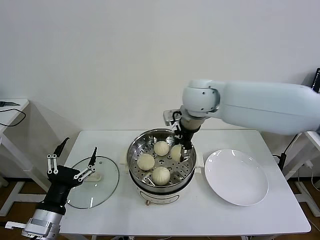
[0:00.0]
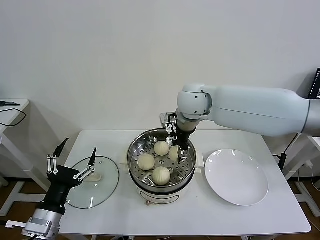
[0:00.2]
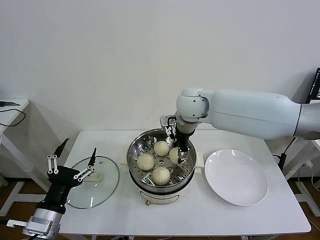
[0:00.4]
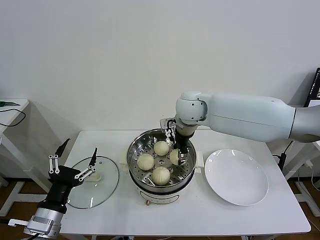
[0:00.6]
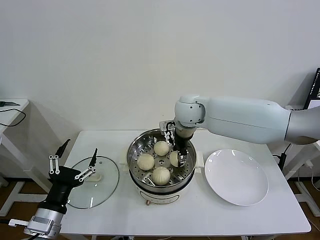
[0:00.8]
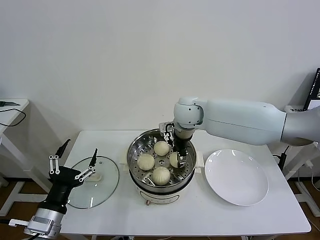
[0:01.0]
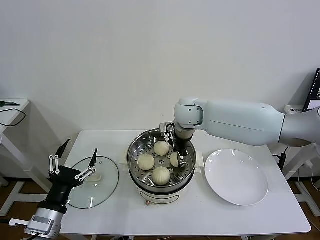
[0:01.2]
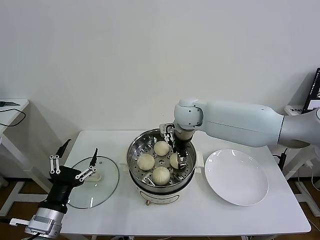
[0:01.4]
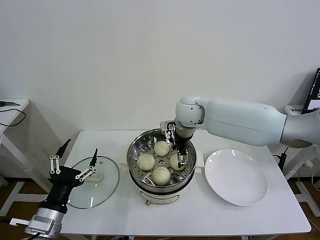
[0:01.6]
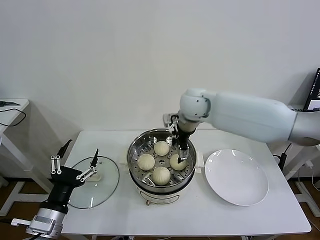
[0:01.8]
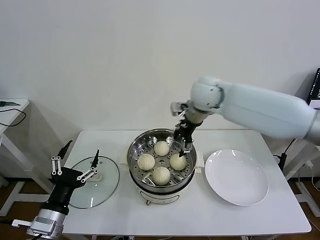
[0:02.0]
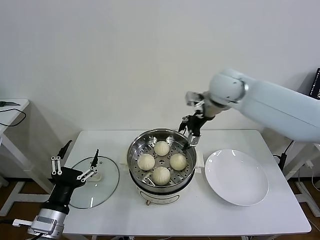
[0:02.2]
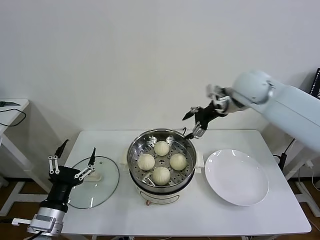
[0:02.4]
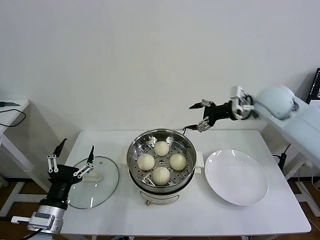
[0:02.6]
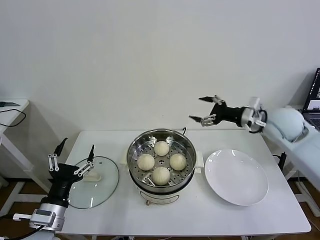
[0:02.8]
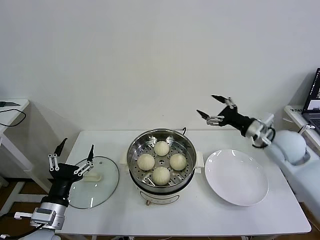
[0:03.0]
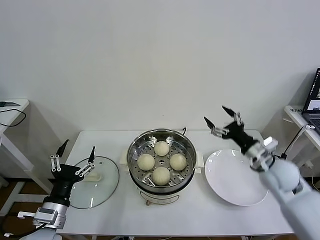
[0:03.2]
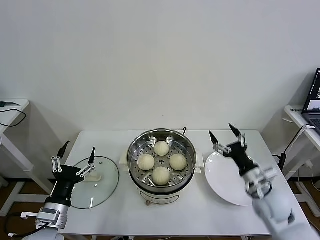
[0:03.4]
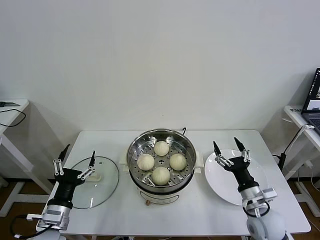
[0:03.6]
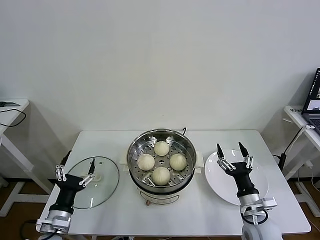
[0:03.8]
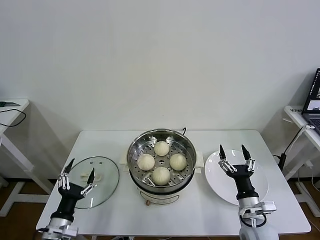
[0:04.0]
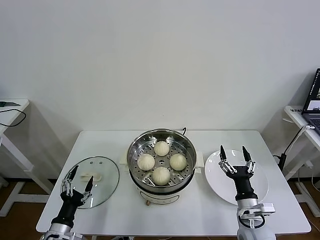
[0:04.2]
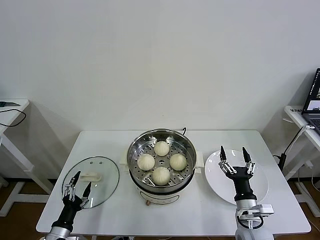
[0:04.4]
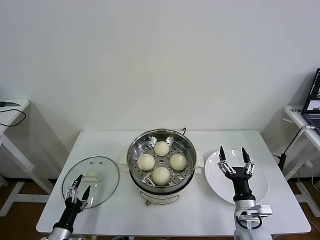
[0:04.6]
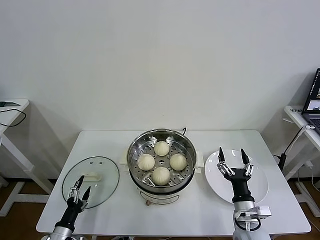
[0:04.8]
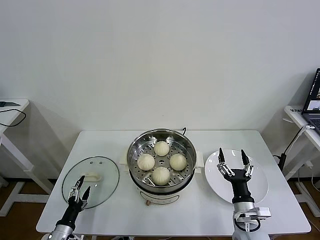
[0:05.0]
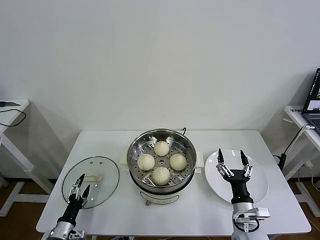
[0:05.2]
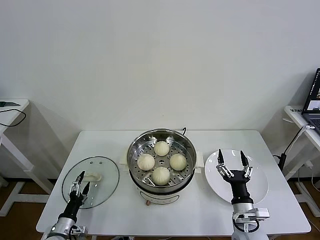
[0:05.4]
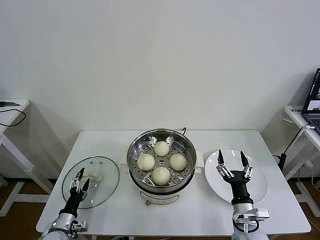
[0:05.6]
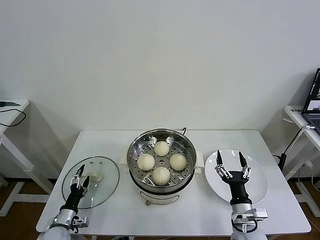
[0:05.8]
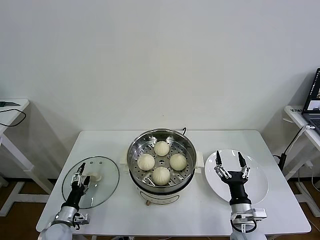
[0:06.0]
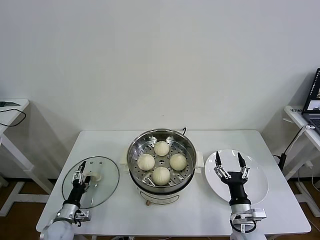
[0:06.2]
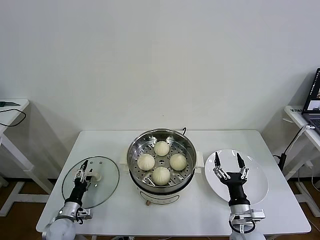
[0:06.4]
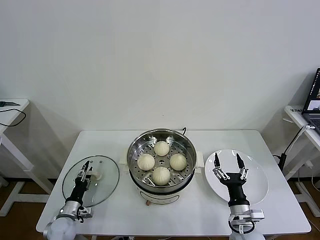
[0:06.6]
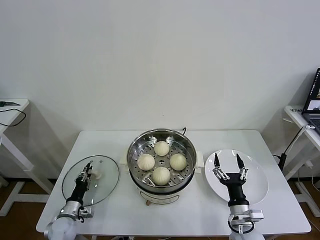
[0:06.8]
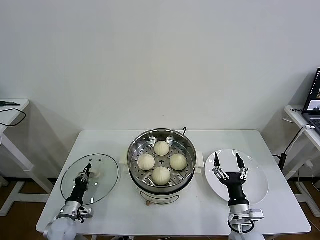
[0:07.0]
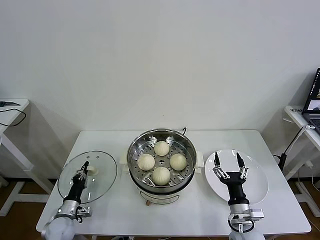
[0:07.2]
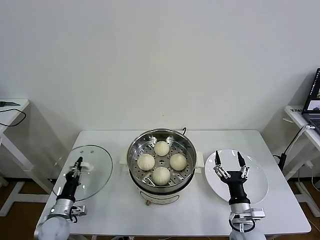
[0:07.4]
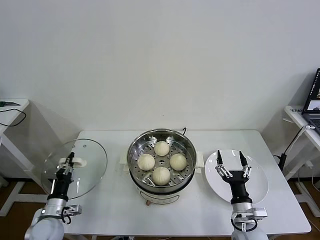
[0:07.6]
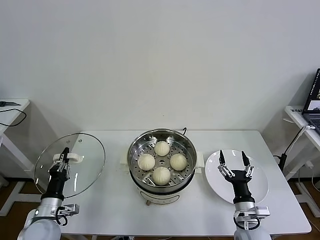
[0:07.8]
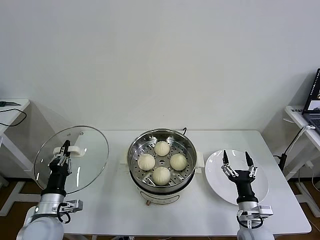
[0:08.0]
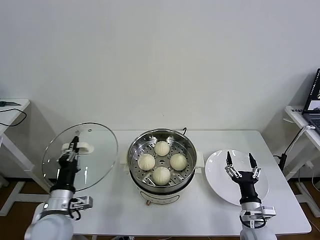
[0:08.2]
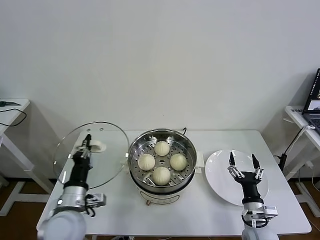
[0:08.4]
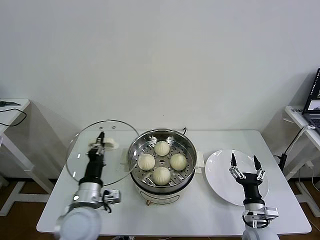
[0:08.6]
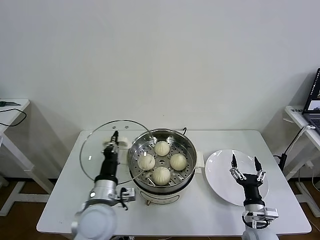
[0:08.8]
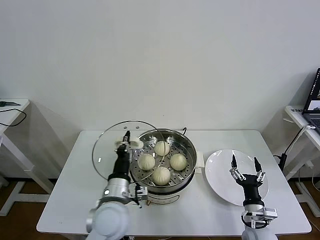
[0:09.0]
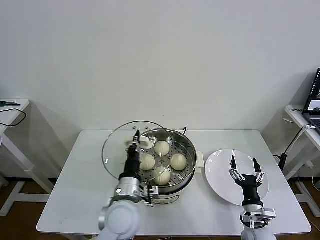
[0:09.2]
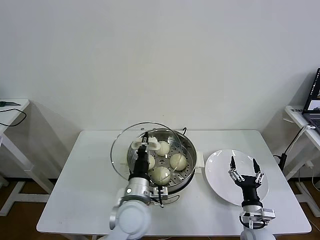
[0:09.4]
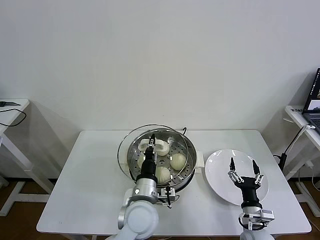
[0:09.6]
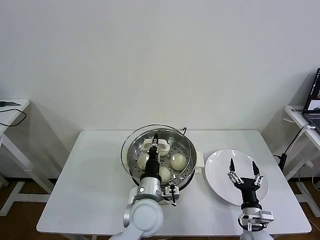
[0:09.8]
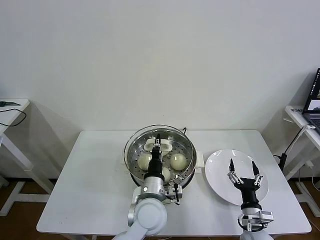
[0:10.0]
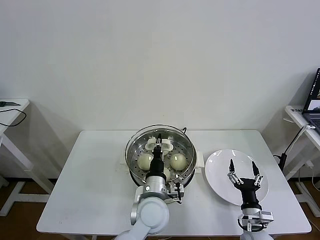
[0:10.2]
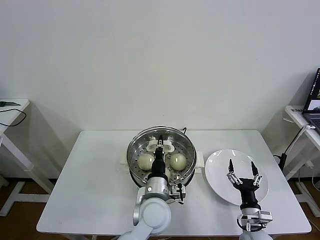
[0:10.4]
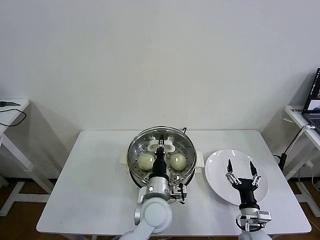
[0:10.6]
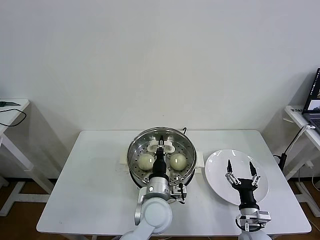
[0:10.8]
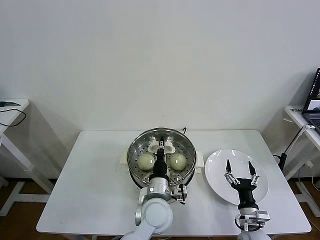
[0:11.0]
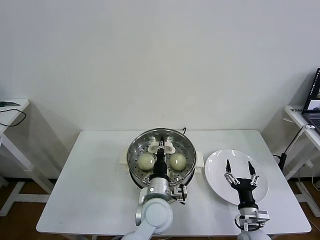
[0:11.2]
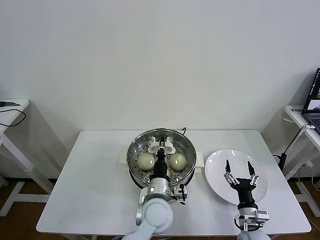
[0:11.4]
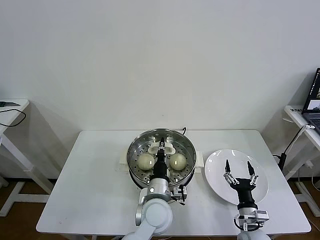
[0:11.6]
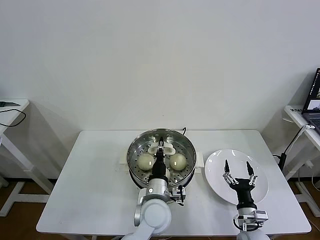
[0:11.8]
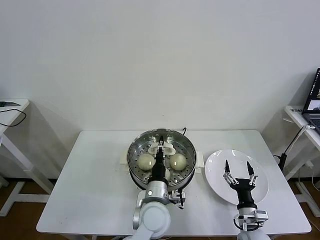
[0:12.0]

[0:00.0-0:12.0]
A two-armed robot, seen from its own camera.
Task of the whole recording: take steamed baozi put them in steamer then cover it.
Step, 0:01.8 to 0:07.0: Grasp the pot lid with left gripper.
0:00.0 to 0:01.6: The right gripper shifts about 10 cm downward, and opens its fingers.
0:01.6 to 0:03.0: The right gripper heads to the right and backward, covering about 30 cm.
0:03.0 to 0:04.4: The right gripper heads downward and backward, covering roughly 25 cm. Meanwhile the left gripper heads downward, covering approximately 15 cm.
0:04.4 to 0:06.0: The left gripper travels forward and downward by about 10 cm.
0:06.0 to 0:07.6: The left gripper is displaced upward by approximately 5 cm, and closes up.
0:07.6 to 0:09.0: The left gripper is displaced to the right and upward by approximately 30 cm.
0:09.0 to 0:10.4: The left gripper travels to the right by about 10 cm.
0:10.4 to 0:12.0: The grippers stay close to where they were, moving slightly.

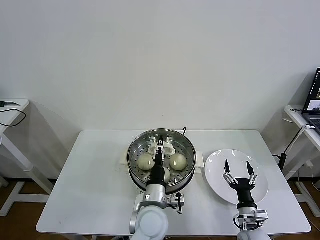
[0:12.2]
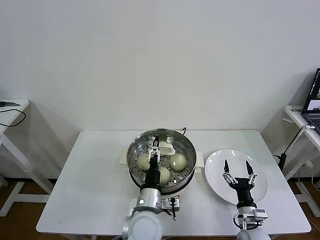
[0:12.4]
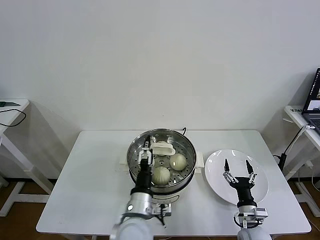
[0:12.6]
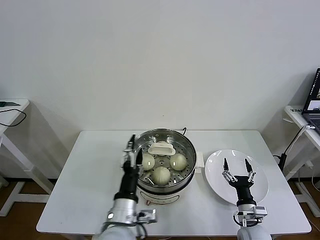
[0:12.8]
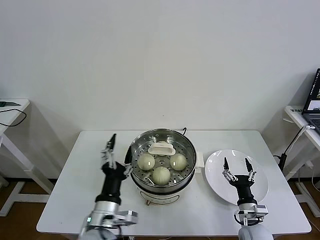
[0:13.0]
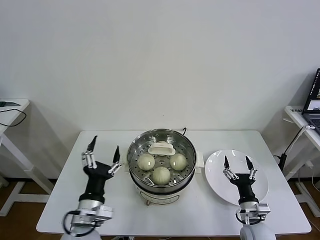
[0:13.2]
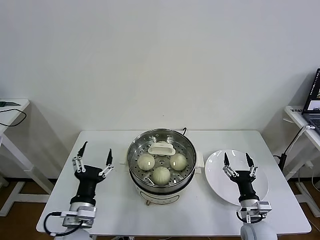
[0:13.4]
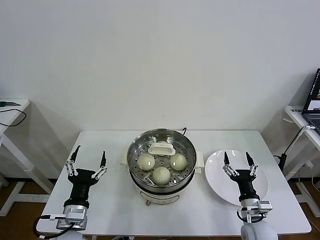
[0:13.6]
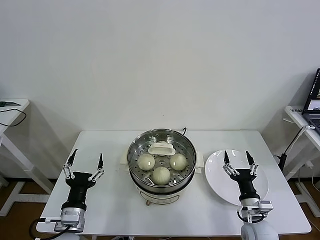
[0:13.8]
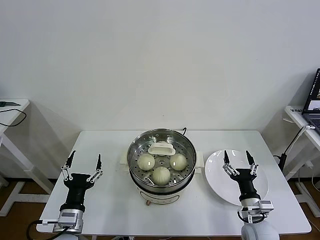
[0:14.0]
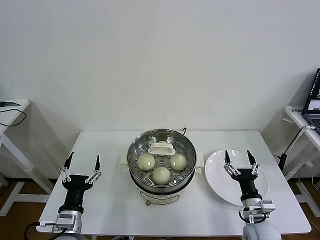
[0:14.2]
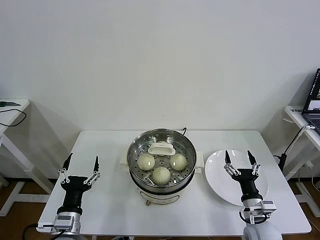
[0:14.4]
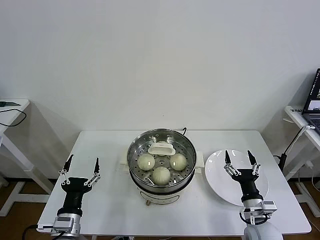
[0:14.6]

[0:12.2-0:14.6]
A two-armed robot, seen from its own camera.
Task of the whole recording: take steamed baozi put them in steamer then cover it.
0:12.2 to 0:13.4: The left gripper goes some 20 cm to the left, and opens its fingers.
0:13.4 to 0:14.6: The left gripper ends up approximately 5 cm from where it was.

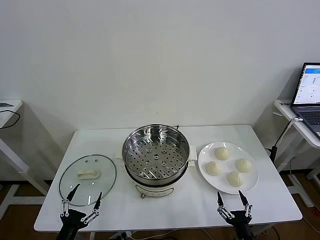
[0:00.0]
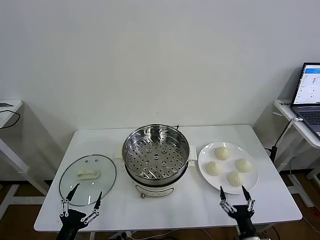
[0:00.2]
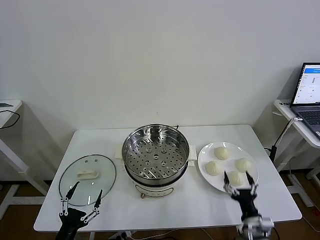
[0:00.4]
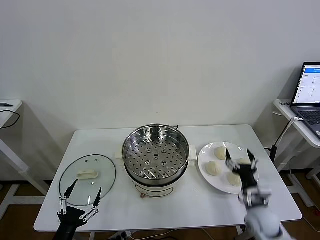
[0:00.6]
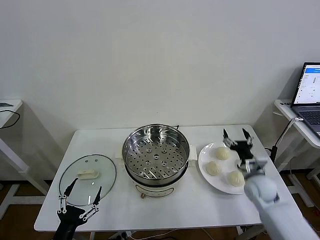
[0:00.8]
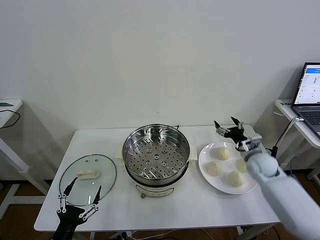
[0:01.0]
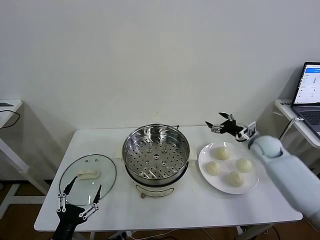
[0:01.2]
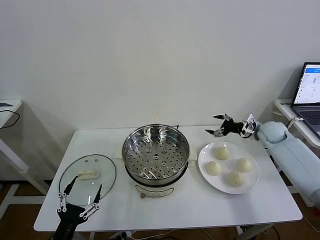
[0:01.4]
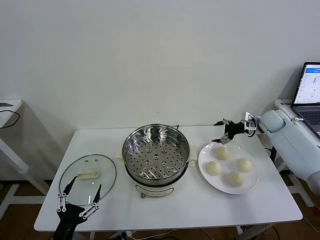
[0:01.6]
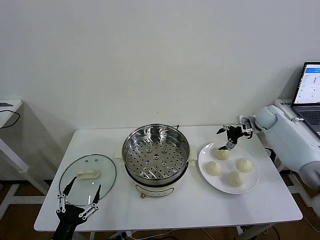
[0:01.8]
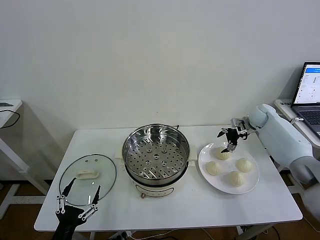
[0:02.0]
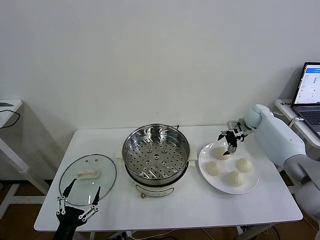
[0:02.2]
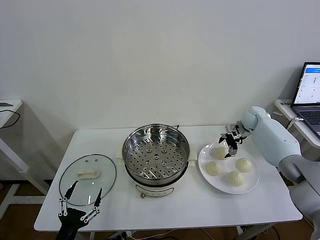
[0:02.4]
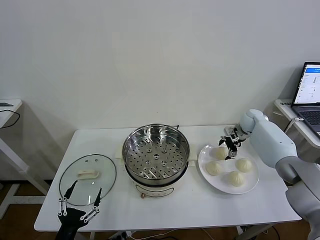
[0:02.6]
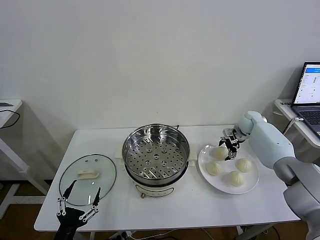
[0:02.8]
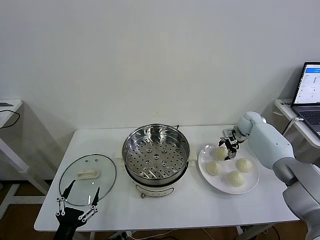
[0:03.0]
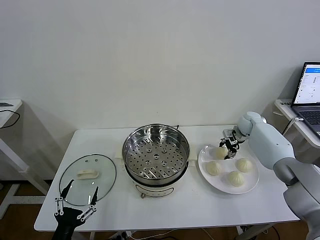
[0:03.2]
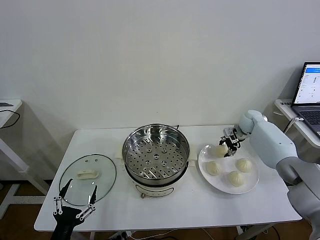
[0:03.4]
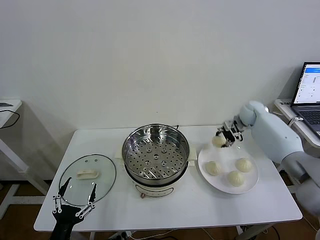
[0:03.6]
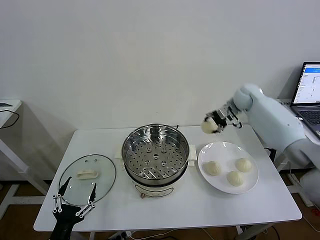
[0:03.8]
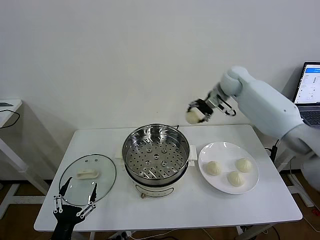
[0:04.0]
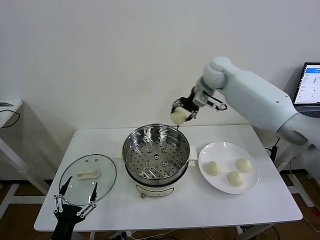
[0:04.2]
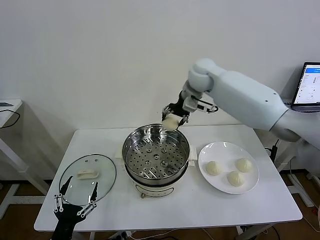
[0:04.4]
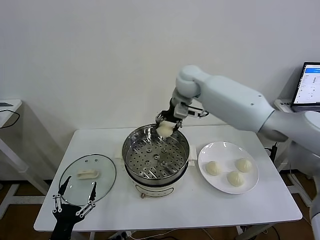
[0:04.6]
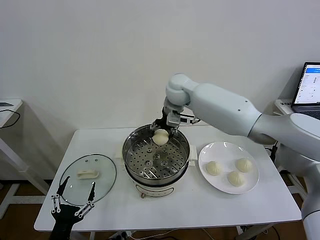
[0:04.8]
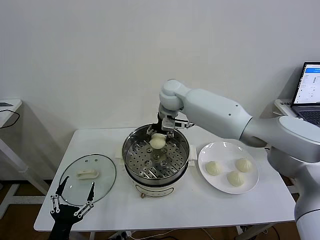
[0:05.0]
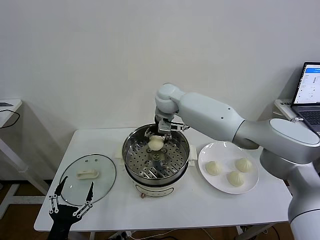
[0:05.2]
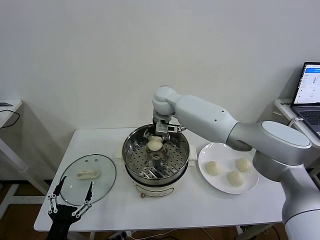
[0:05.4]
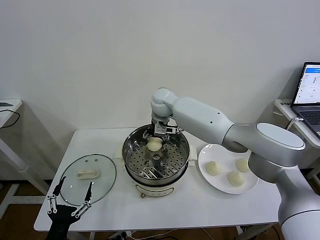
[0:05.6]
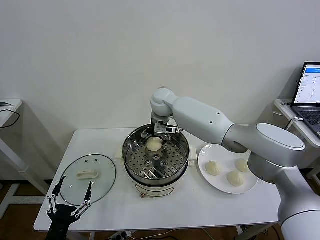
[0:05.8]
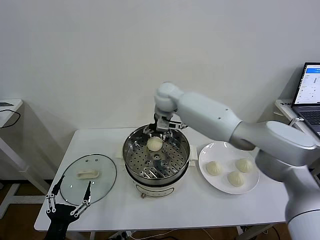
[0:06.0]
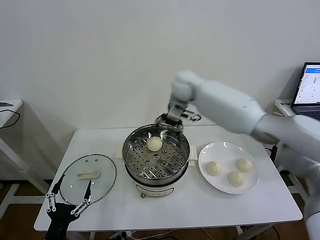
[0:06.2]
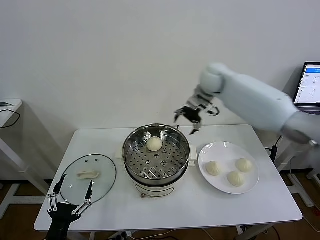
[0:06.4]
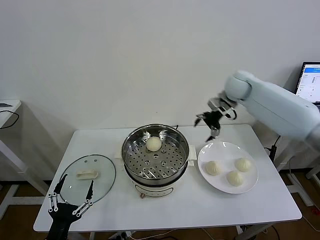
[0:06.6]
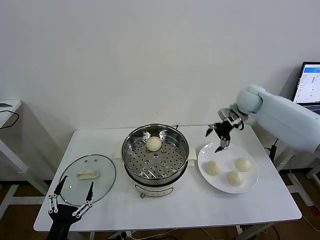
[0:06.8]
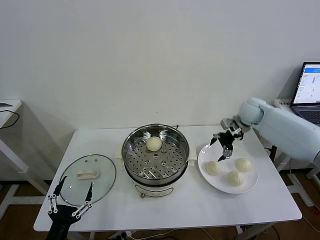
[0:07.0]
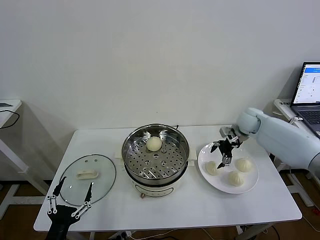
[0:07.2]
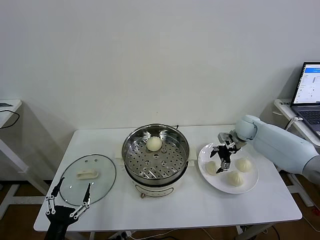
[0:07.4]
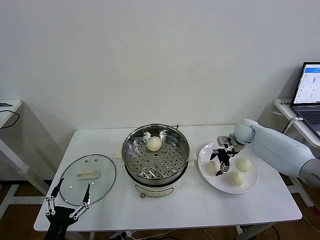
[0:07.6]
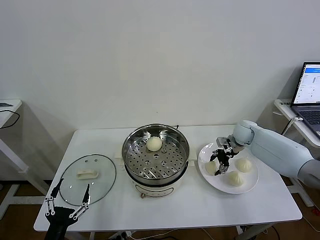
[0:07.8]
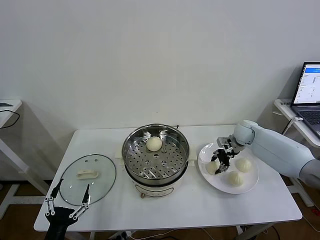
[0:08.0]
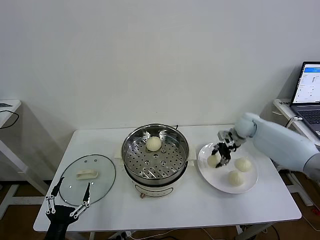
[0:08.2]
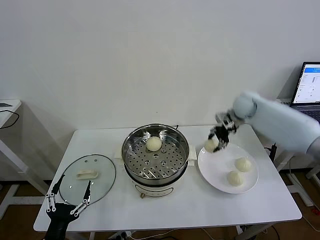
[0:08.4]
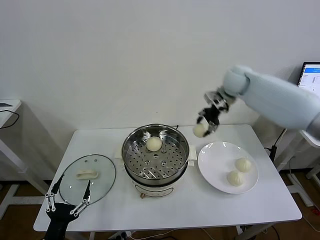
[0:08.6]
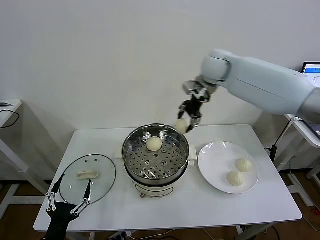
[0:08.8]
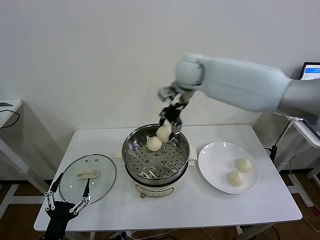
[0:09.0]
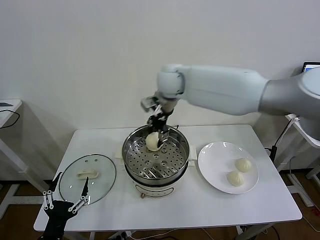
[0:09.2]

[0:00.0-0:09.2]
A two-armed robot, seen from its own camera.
Task of the whole recording: take steamed baozi put them in steamer then cover it.
Step, 0:00.0 to 0:03.0: Grasp the baozi in the plate with right gripper.
Step, 0:03.4 to 0:05.8: Place the baozi on the steamer with right gripper.
Step, 0:06.0 to 0:07.8: Grasp the baozi in the plate with right gripper.
0:01.6 to 0:03.0: The right gripper heads downward, covering approximately 5 cm, and closes up.
0:03.0 to 0:04.6: The right gripper is displaced to the left and upward by roughly 40 cm.
0:04.6 to 0:06.2: The right gripper shifts roughly 10 cm to the right, and opens.
0:06.2 to 0:07.6: The right gripper travels downward and to the right by about 30 cm.
0:07.6 to 0:09.2: The right gripper moves to the left and upward, some 40 cm, and closes.
